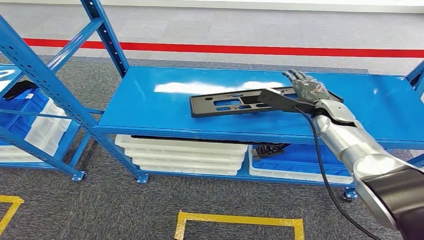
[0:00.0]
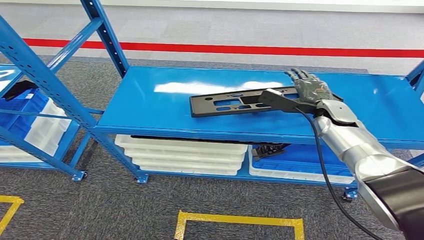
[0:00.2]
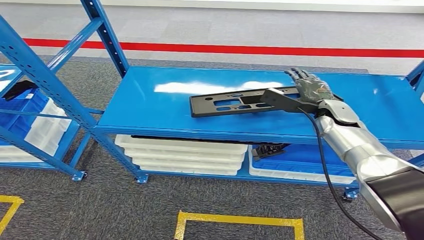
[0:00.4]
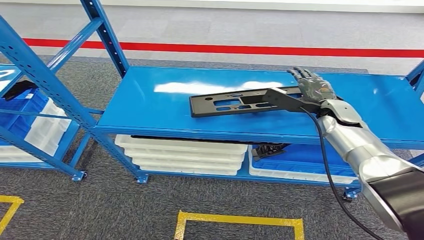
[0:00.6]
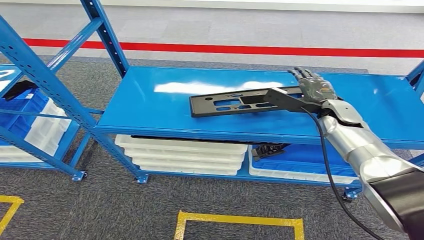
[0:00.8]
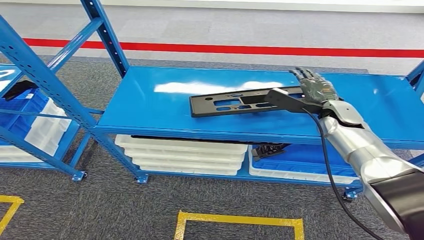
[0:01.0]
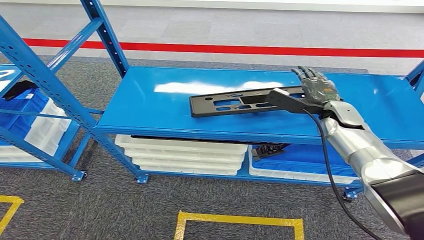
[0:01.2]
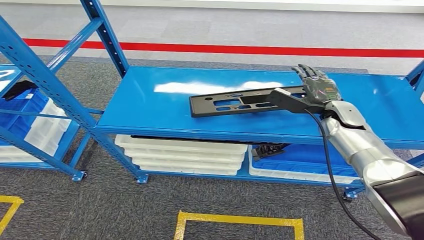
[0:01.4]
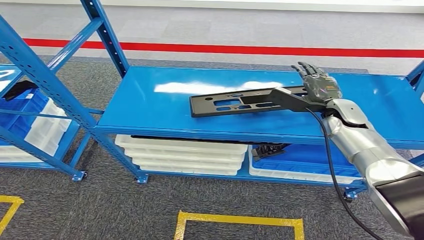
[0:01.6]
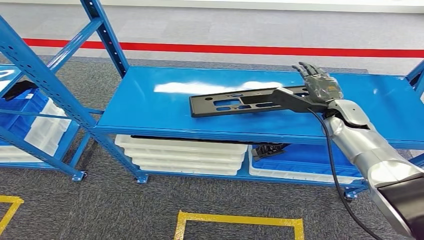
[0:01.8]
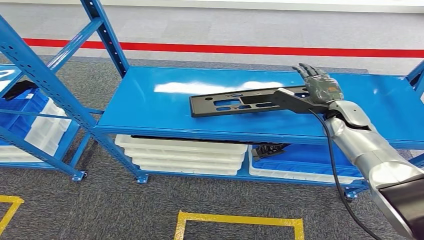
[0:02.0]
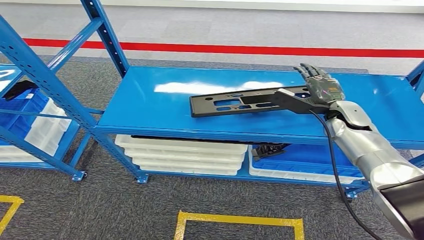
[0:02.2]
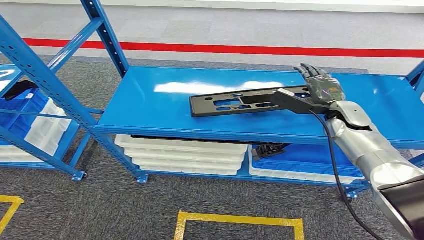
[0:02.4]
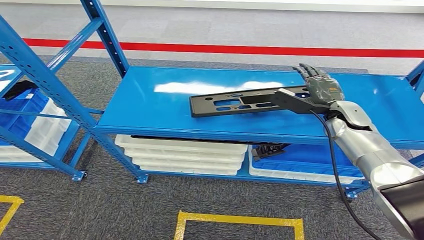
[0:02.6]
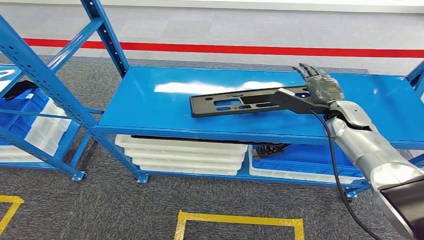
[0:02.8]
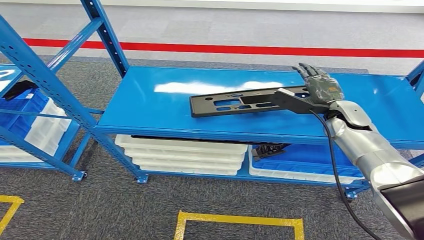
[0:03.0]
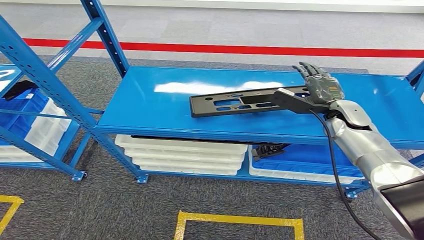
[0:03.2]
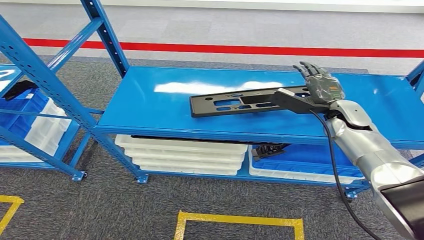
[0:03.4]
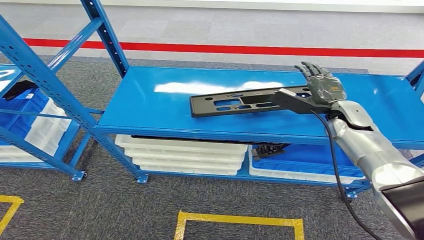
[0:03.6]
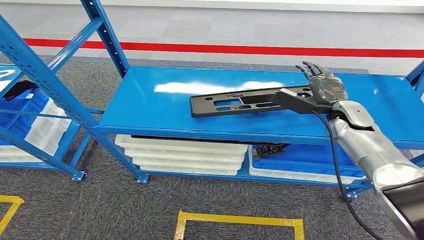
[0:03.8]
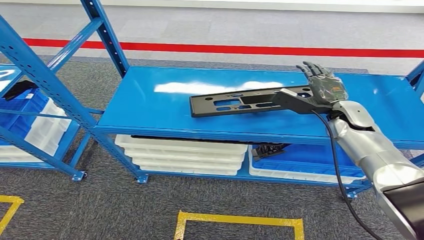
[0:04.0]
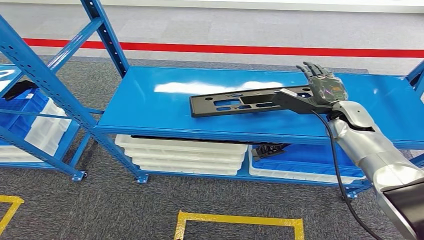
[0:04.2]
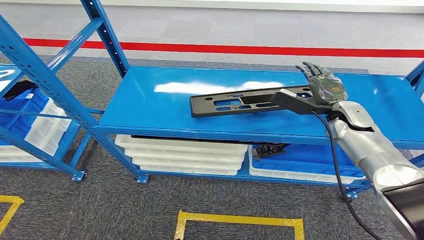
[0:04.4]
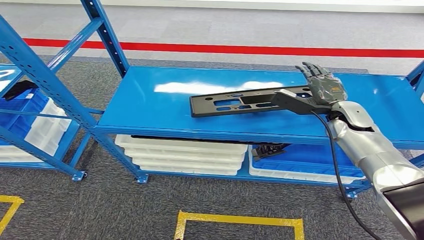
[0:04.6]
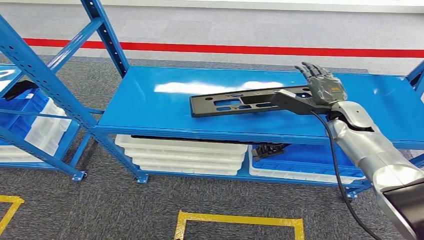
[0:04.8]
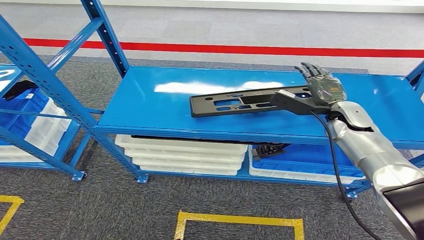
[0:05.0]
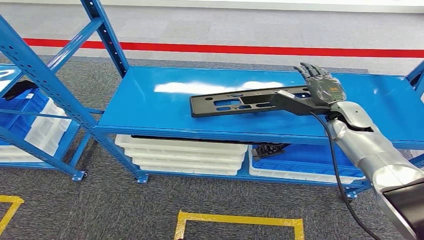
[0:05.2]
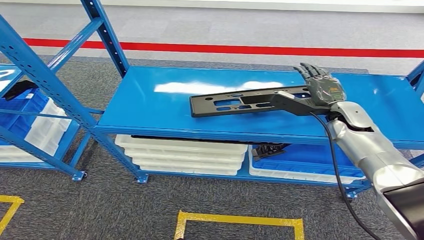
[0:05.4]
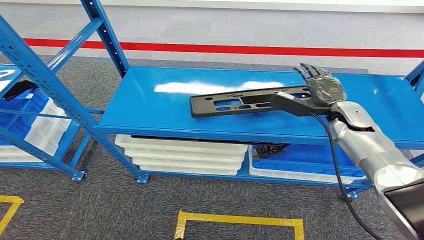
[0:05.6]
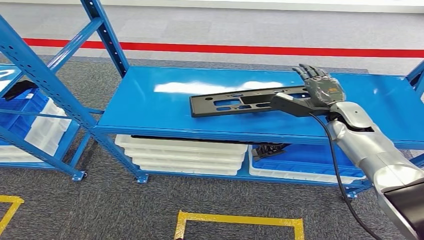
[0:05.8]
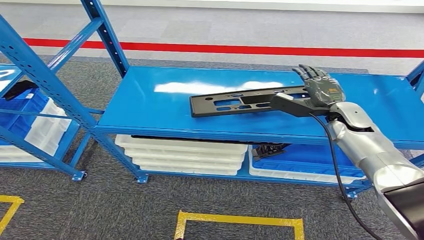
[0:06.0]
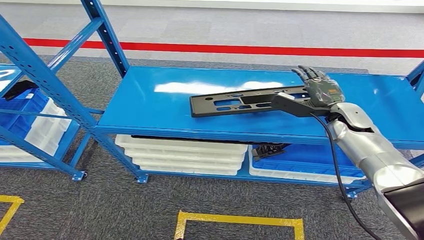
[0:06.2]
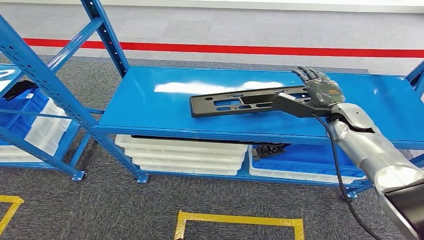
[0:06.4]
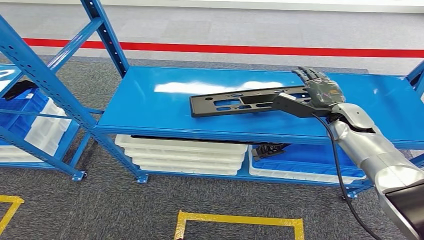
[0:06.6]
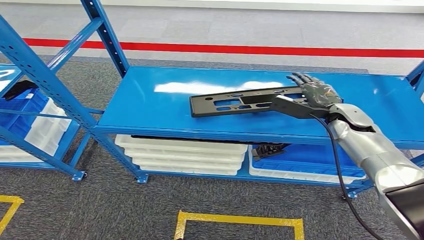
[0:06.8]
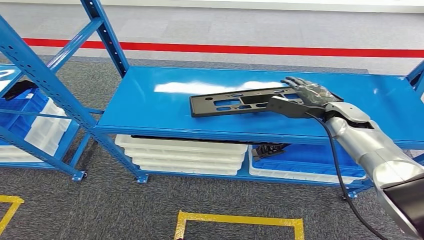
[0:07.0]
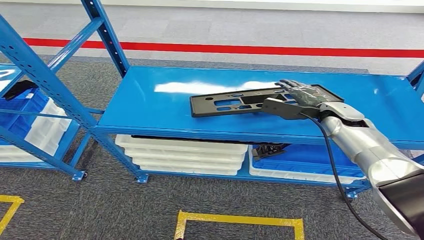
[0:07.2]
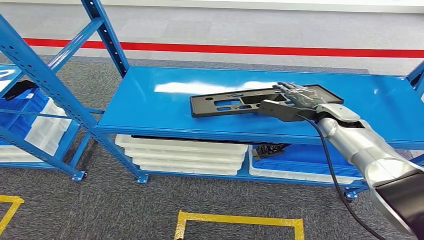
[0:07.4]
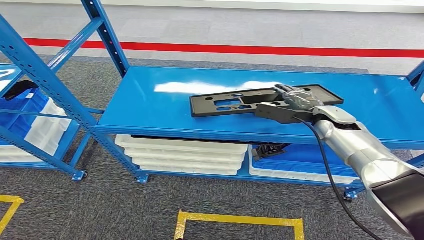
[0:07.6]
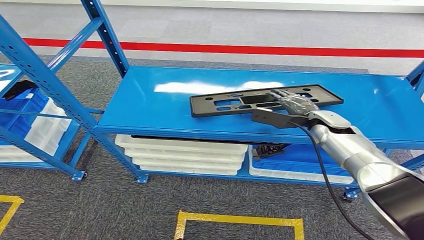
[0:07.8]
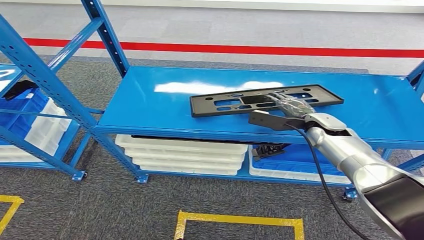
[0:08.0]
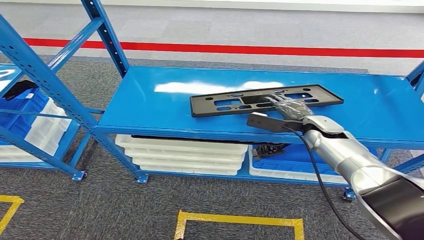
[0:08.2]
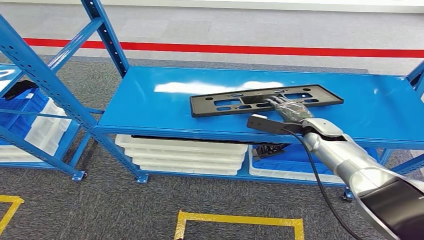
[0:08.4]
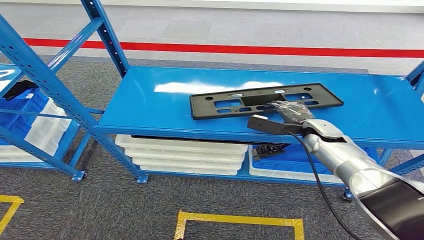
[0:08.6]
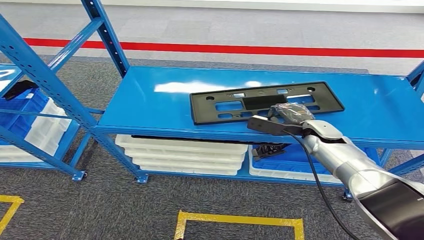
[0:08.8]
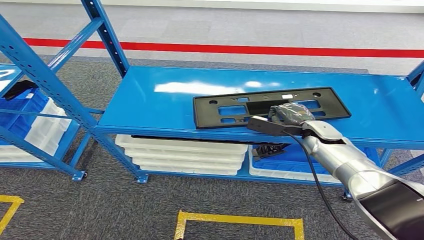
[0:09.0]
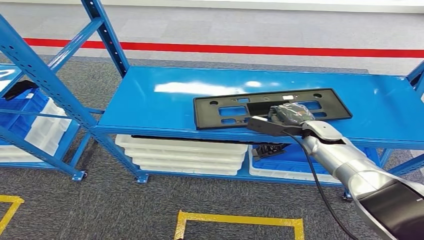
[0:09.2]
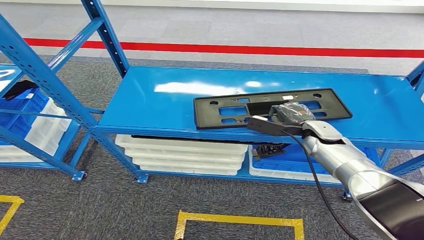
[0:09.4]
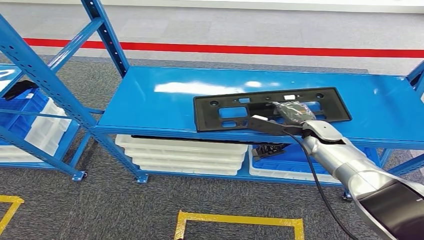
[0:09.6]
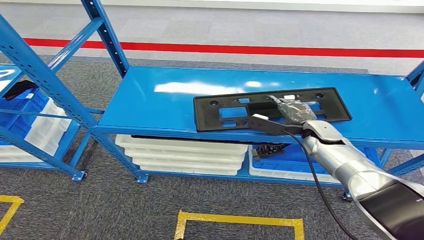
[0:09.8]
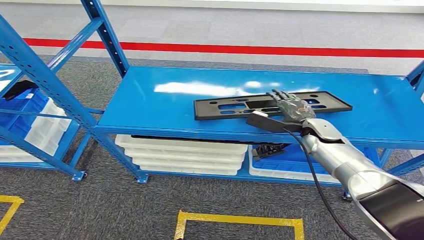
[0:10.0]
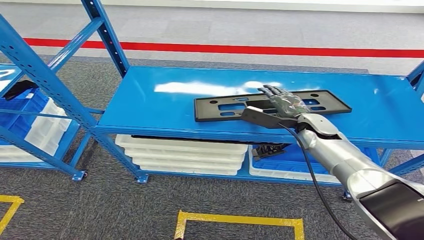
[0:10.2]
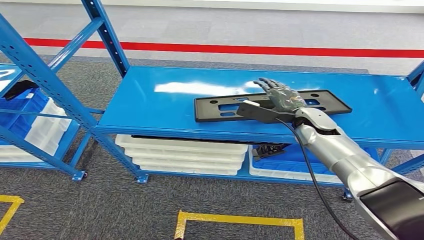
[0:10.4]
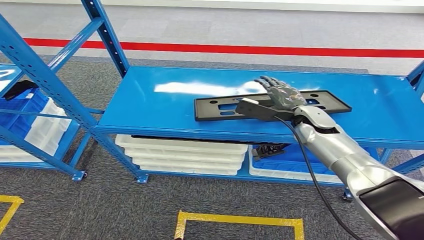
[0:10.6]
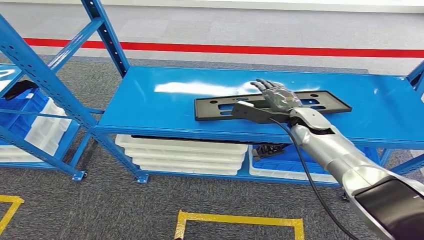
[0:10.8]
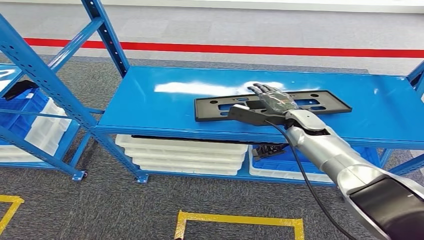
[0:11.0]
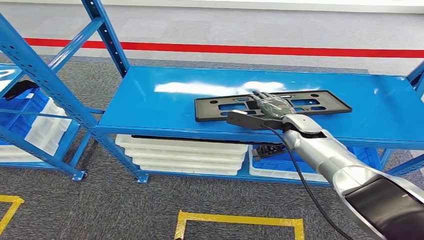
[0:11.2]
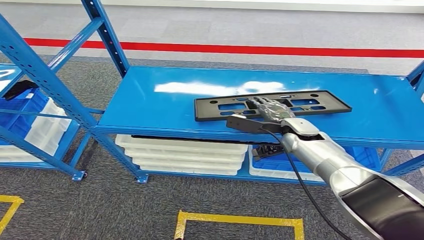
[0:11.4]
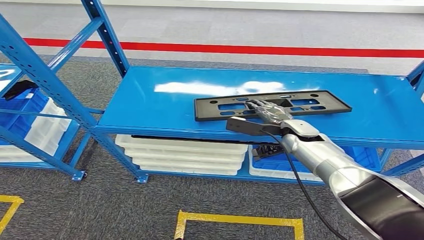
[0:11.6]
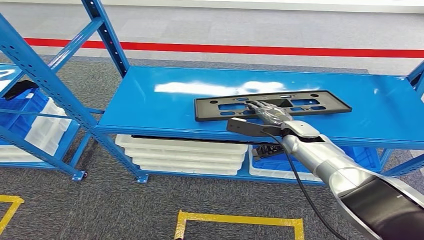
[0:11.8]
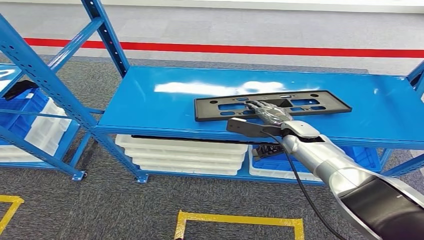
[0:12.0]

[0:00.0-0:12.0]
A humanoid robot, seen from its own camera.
0:00.0 to 0:01.6: The hands move only a little.
0:01.6 to 0:04.4: Both hands stay put.
0:04.4 to 0:06.0: The two hands keep their place.
0:07.6 to 0:09.0: The right hand is displaced downward by approximately 5 cm.
0:09.0 to 0:10.4: The right hand moves some 5 cm.
0:10.4 to 0:12.0: The right hand moves roughly 5 cm.

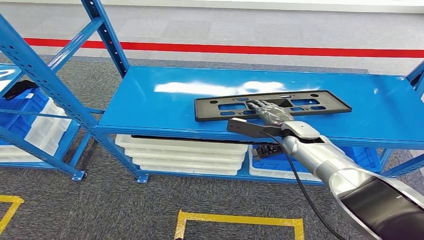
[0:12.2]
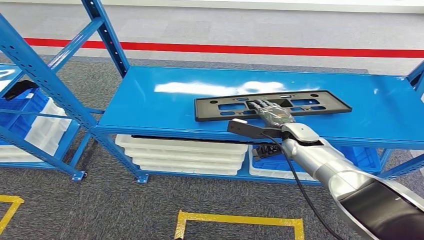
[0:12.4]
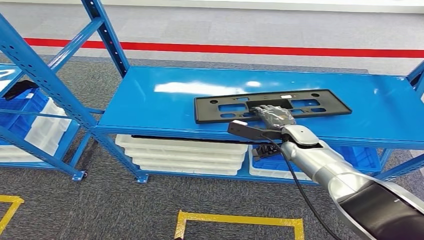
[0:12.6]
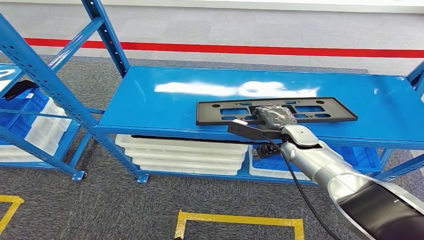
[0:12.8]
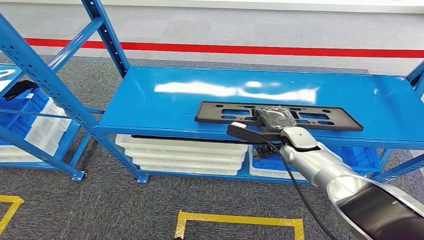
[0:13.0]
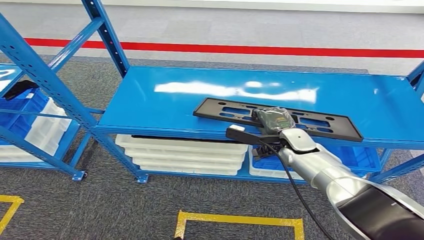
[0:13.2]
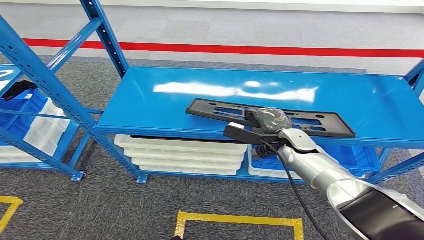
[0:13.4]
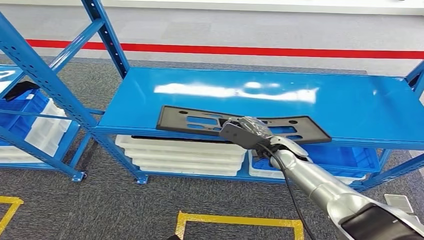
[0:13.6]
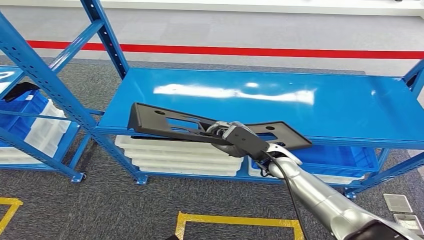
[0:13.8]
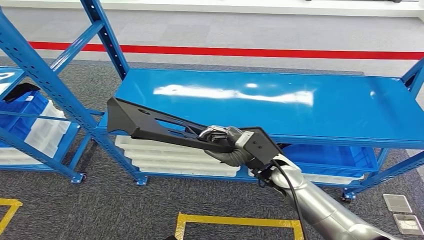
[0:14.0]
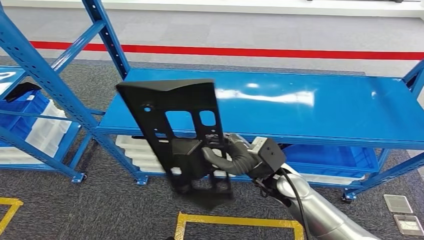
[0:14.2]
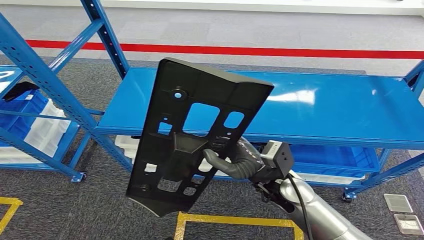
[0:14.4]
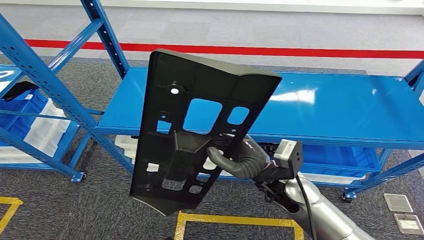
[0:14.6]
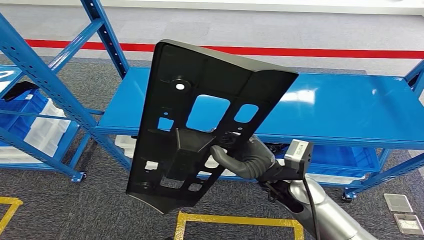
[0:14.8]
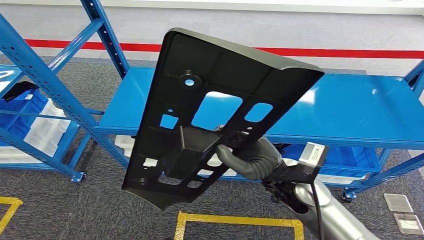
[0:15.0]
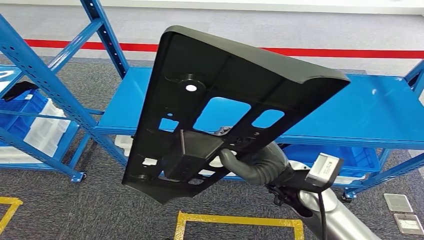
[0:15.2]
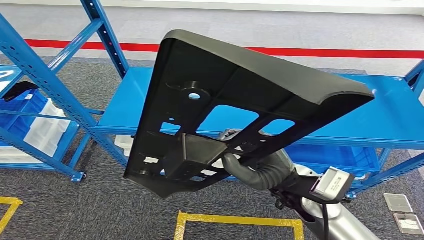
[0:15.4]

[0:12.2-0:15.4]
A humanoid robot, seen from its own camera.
Step, 0:12.2 to 0:15.4: Pick up the large parts from the shelf.
